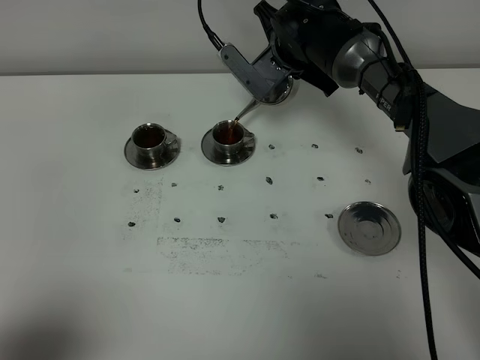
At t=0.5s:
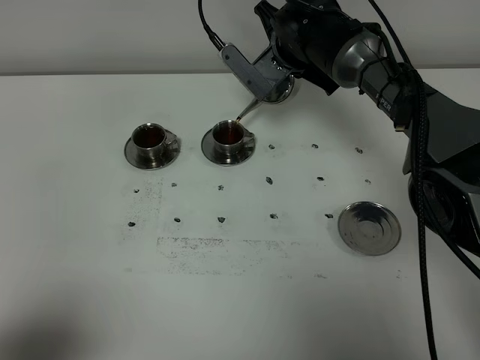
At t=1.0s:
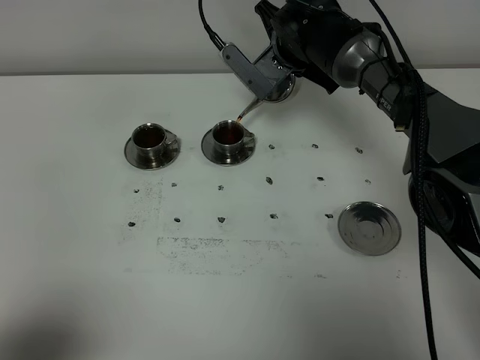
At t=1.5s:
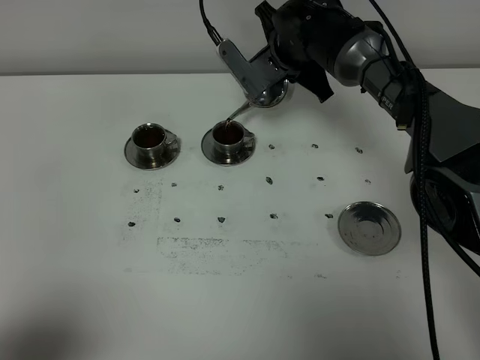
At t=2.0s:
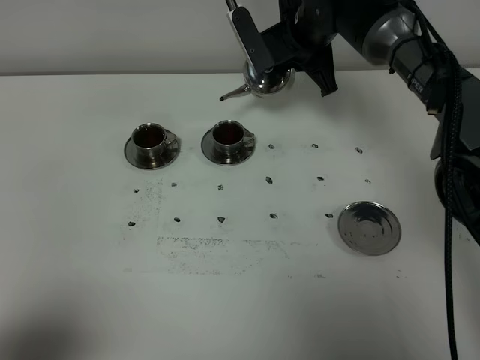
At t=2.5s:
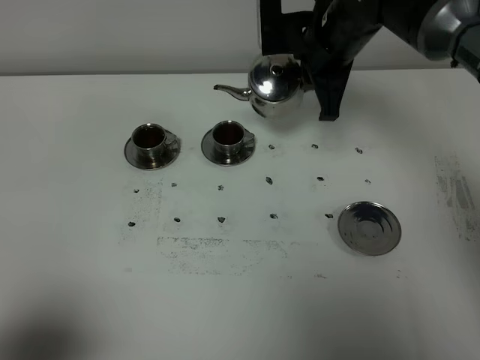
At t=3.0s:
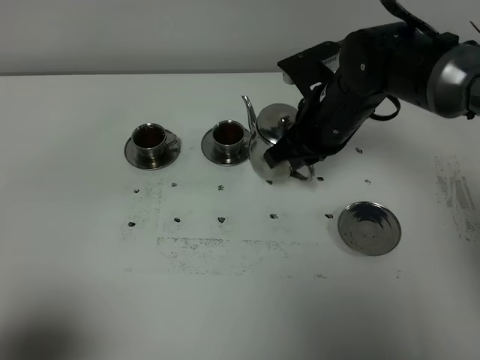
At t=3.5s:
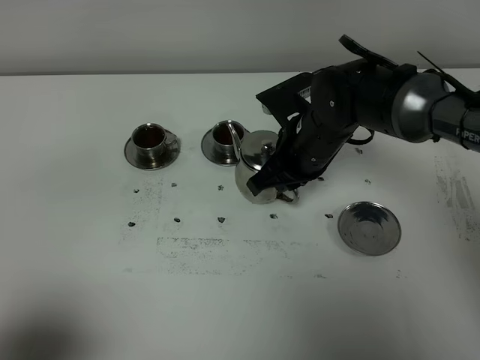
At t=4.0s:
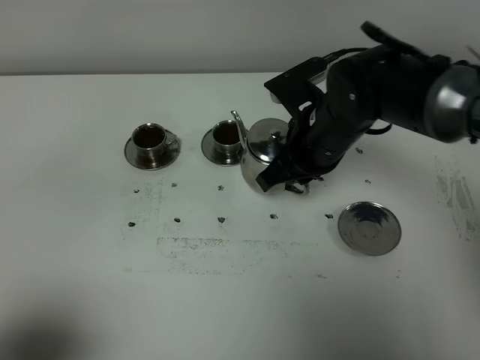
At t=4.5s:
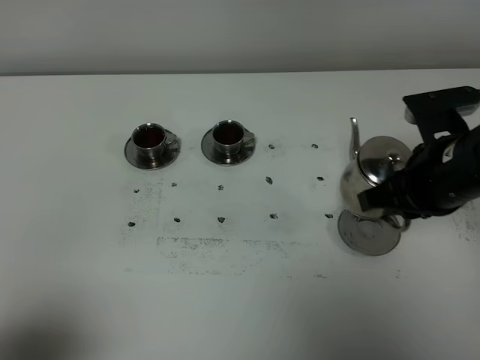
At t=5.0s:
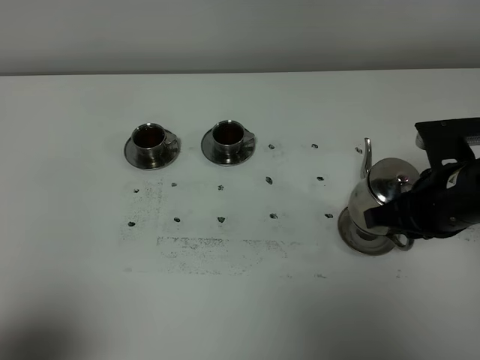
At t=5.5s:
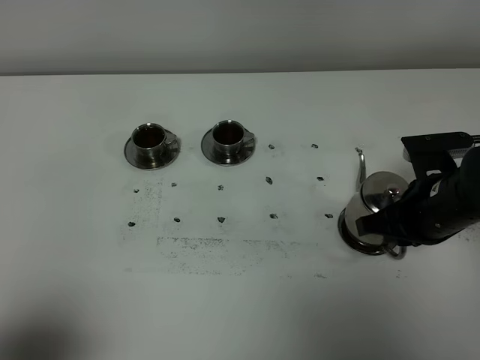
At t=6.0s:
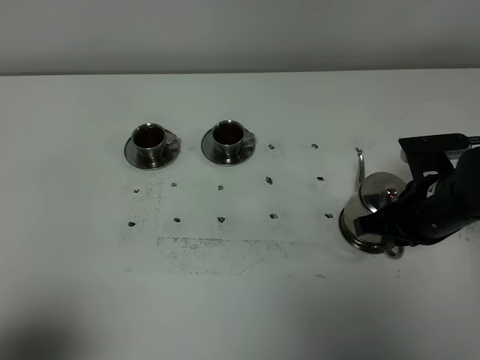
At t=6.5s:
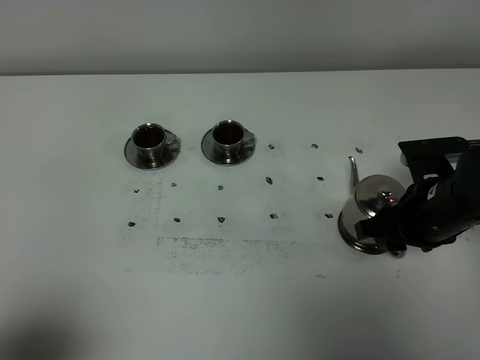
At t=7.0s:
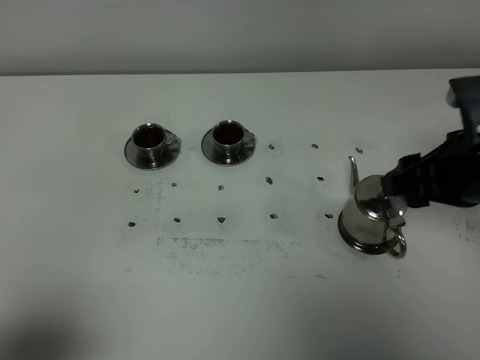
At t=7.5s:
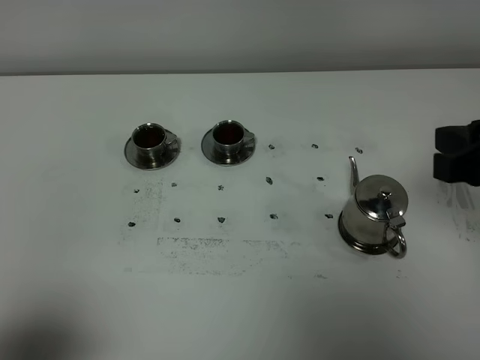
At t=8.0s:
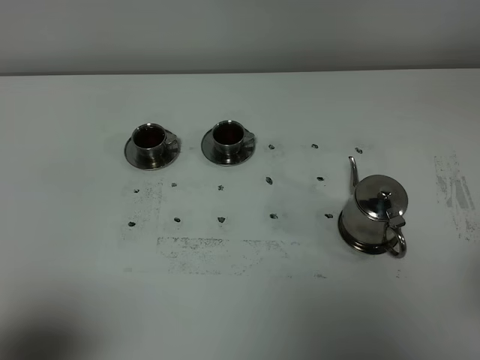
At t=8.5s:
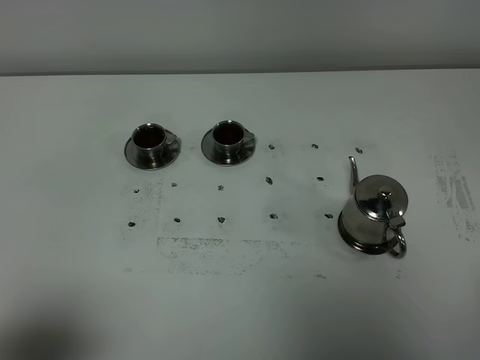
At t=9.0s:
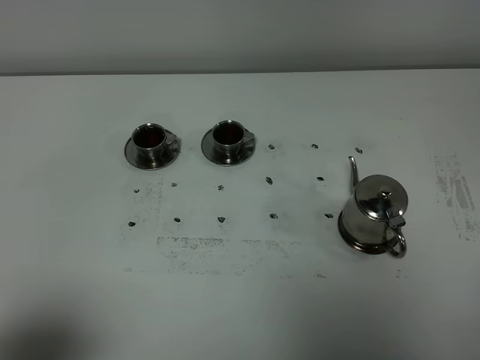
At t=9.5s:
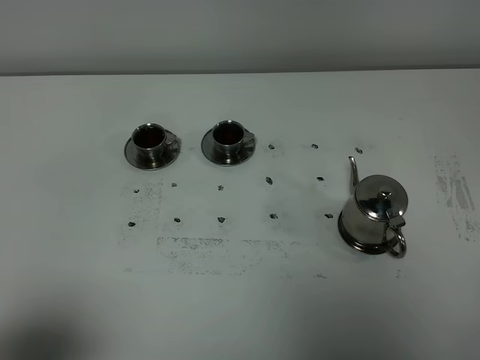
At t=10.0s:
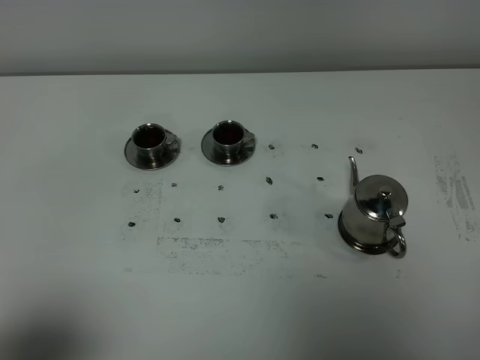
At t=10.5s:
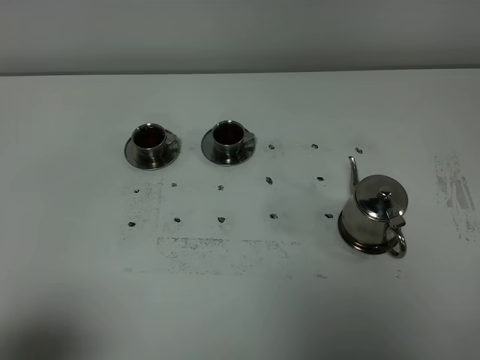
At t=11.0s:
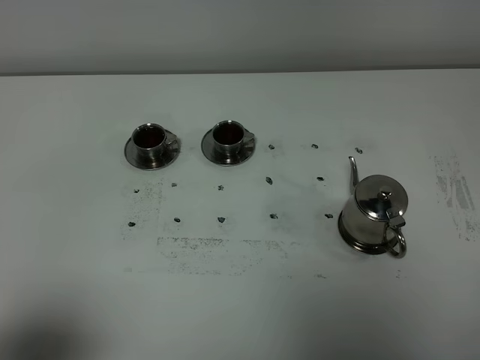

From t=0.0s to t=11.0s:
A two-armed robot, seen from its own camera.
Task of the whole recording: grasp the stainless steel teapot and pour the tea into the two stainless steel teacups one by one, put the stainless steel teapot back in its original place.
From t=0.0s to t=2.0s: The grippers make only small movements.
From t=2.0s to t=3.5s: The right gripper travels backward and downward by approximately 15 cm.
From t=3.5s to t=5.5s: The right gripper travels to the right and backward by some 15 cm.
From t=5.5s to t=7.5s: The right gripper moves upward and backward, about 20 cm, and opens up.
From t=7.5s to t=9.0s: The right gripper shifts roughly 20 cm backward, and closes its fingers.
From t=9.0s to t=11.0s: Both grippers stay about where they are.
